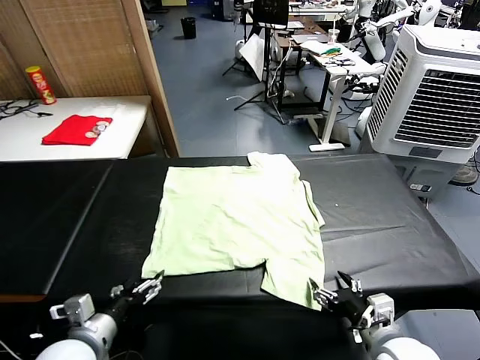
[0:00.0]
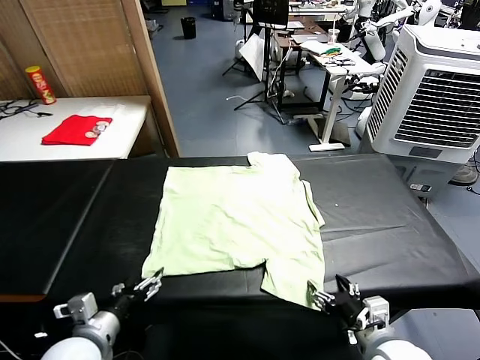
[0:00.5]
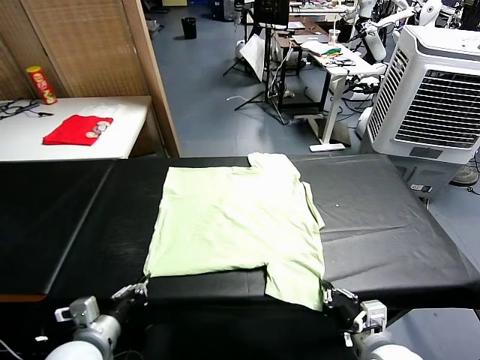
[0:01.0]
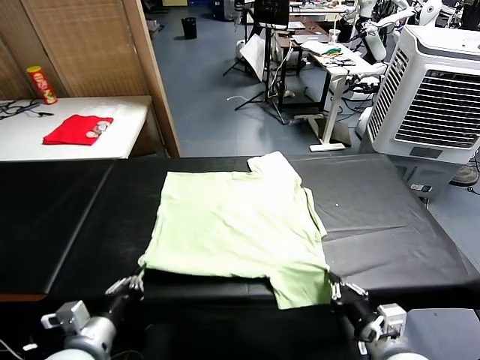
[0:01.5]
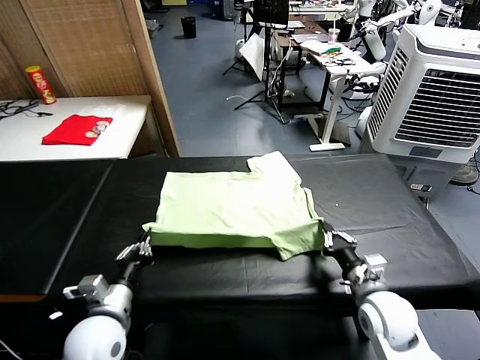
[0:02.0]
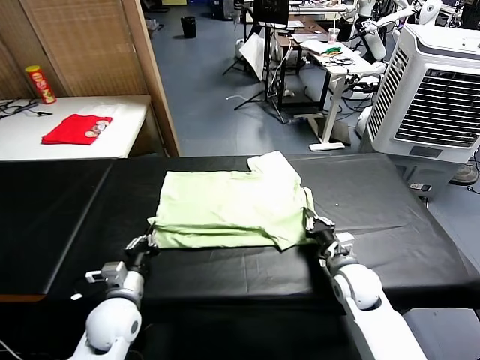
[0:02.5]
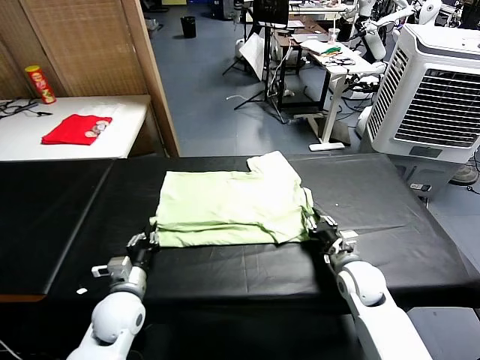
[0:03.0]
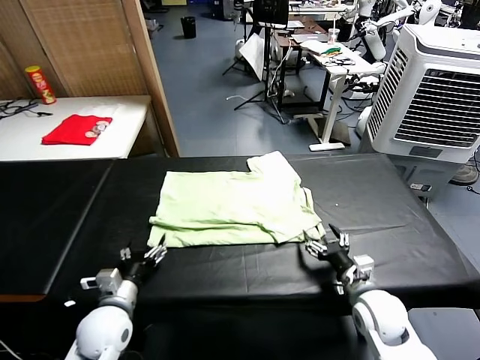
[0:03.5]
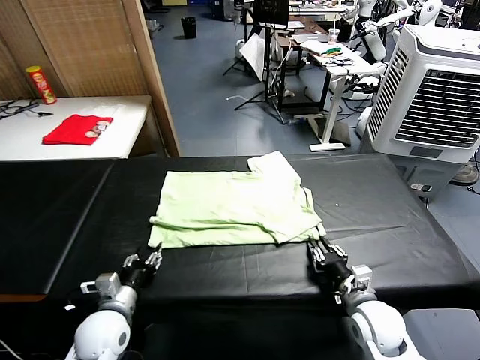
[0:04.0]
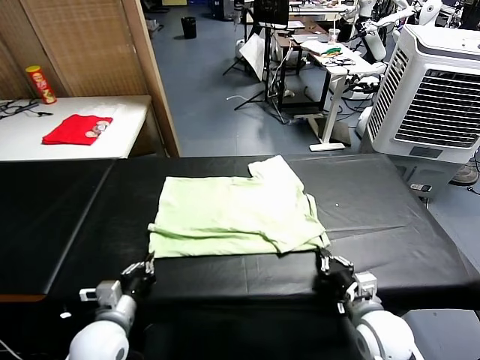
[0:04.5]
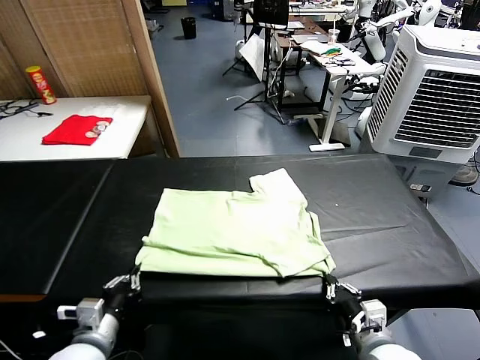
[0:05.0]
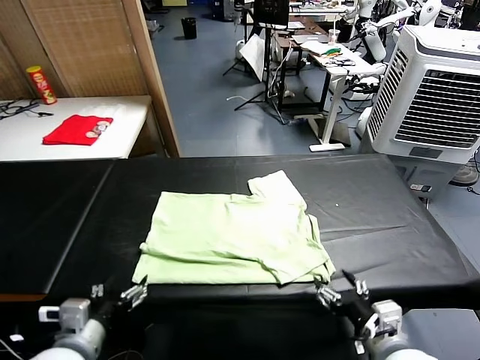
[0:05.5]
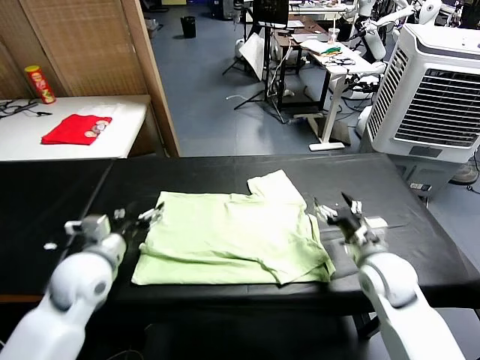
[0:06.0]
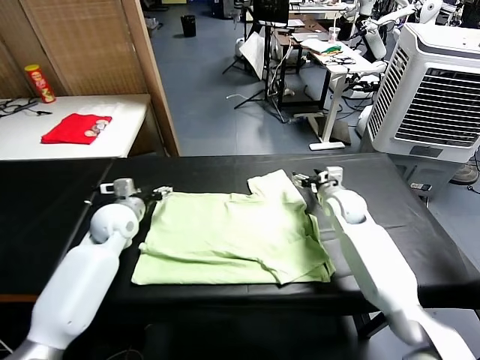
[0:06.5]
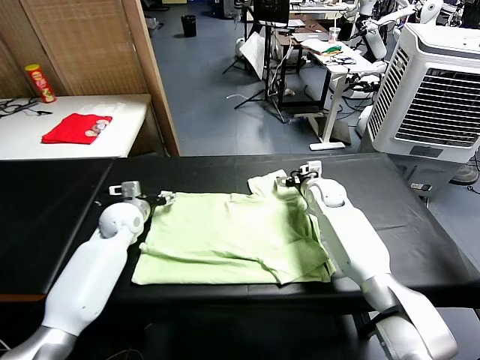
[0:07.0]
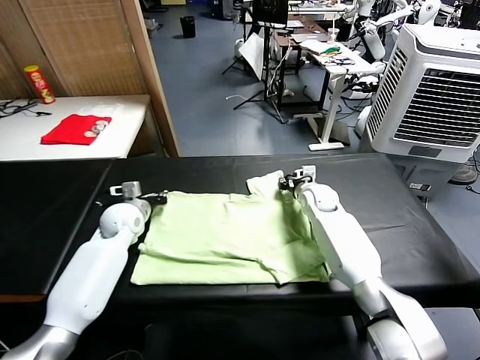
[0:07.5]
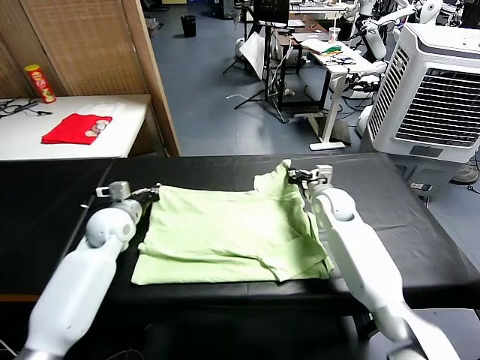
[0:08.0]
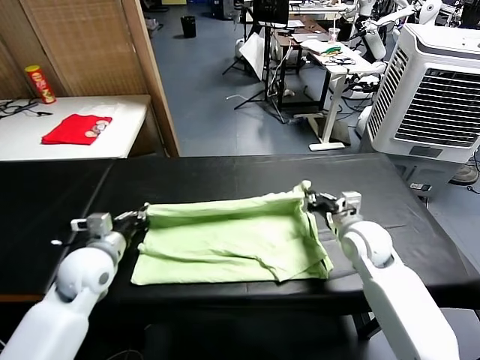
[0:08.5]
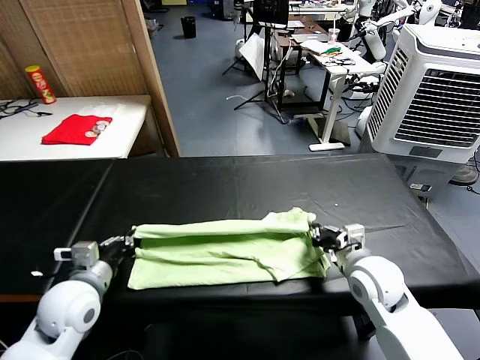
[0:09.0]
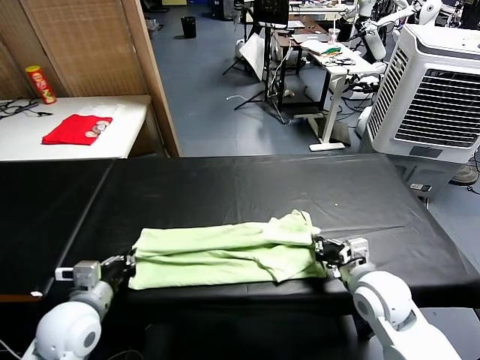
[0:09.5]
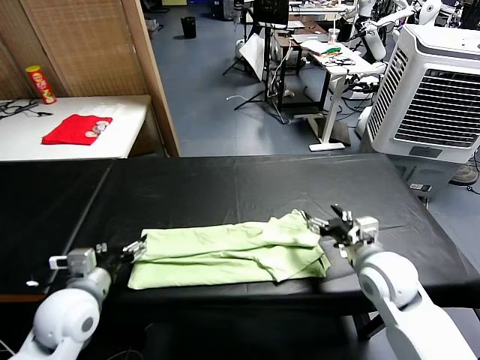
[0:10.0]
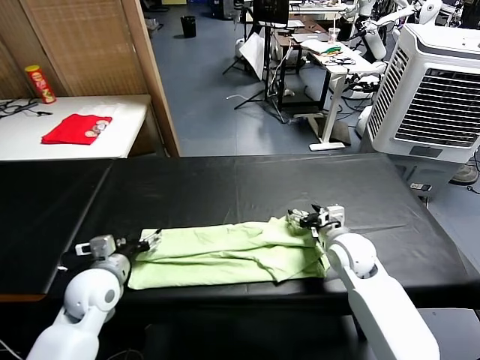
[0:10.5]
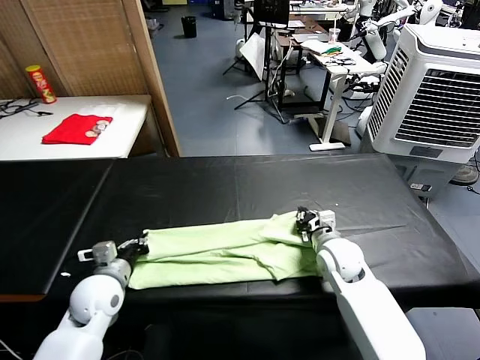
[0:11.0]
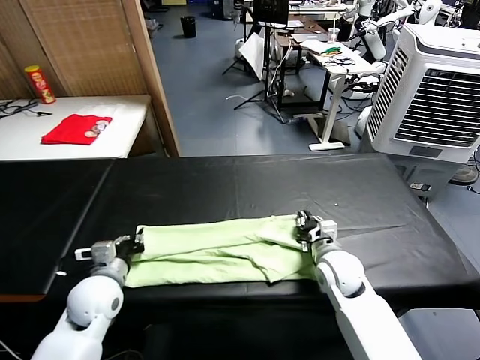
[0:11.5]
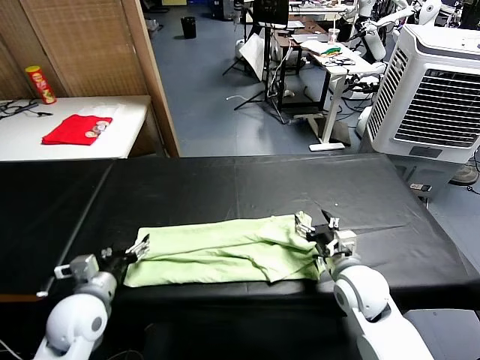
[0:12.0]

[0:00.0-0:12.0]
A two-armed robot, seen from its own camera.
Task of the whole recording: fold and organize the clothes.
Step, 0:00.0 to 0:01.0: use both grippers simultaneously to clamp the lower edge of the clothing fabric.
Step, 0:01.5 to 0:03.0: use both grippers to drag the lower edge of the fabric forward and fold it over the upper edge.
Step, 0:03.5 to 0:05.5: Drag the clothes downward with both gripper.
Step, 0:06.0 to 0:07.5: use both grippers simultaneously to clamp the upper edge of the clothing fabric.
Step, 0:08.0 to 0:09.5: use both grippers to drag the upper edge of the fabric backward and fold it over the lower edge.
0:02.0 to 0:04.0: The left gripper is displaced downward by about 5 cm, and opens its fingers; the right gripper opens, then closes again.
0:04.0 to 0:06.0: The right gripper is displaced forward and upward by about 15 cm, and opens up. Meanwhile the left gripper moves upward and forward, about 15 cm, and opens up.
0:06.0 to 0:08.0: The grippers both shift forward by approximately 10 cm. The right gripper closes. Meanwhile the left gripper closes.
0:08.0 to 0:10.0: Both grippers travel together backward, some 15 cm. The right gripper opens, while the left gripper opens.
0:10.0 to 0:12.0: The left gripper closes, then reopens; the right gripper moves approximately 5 cm forward and comes back, and closes and opens again.

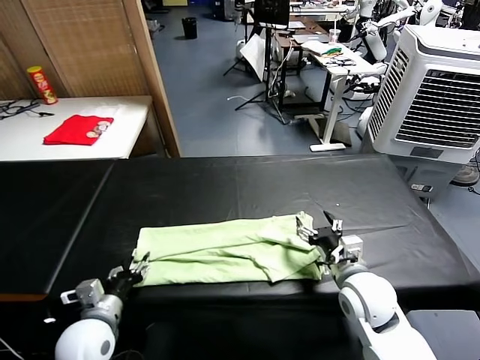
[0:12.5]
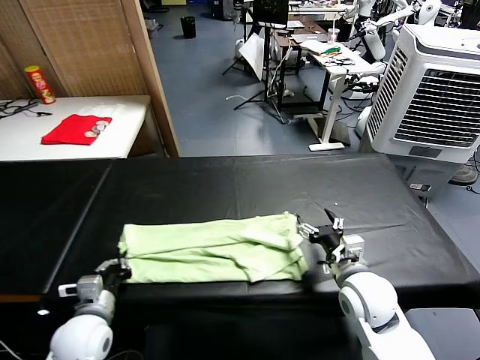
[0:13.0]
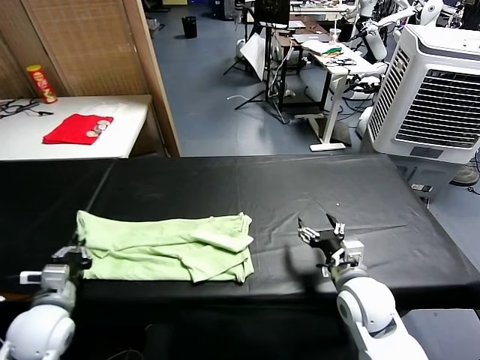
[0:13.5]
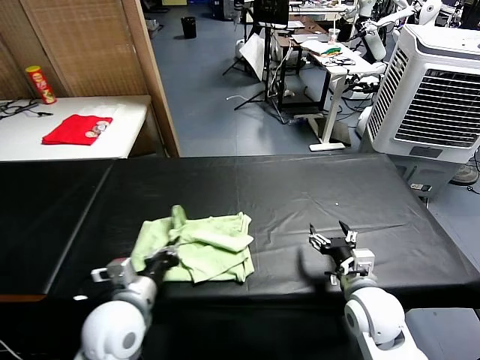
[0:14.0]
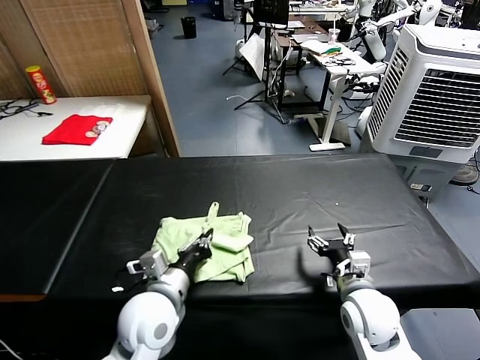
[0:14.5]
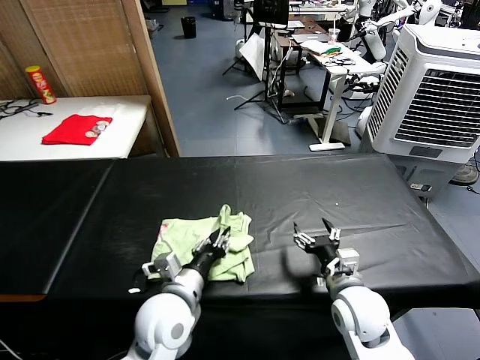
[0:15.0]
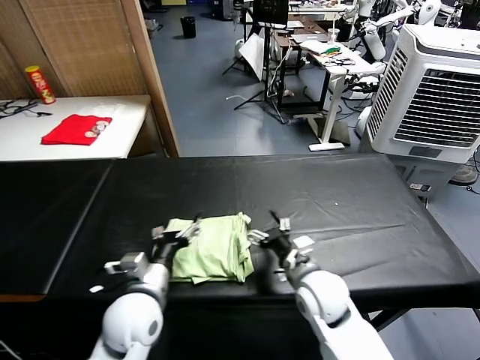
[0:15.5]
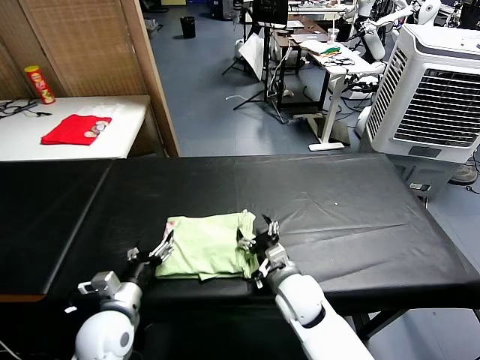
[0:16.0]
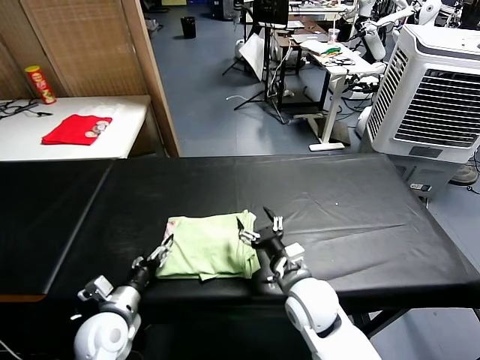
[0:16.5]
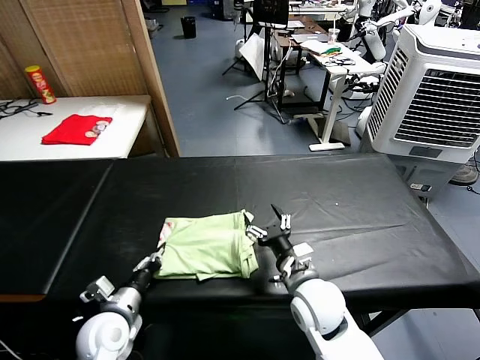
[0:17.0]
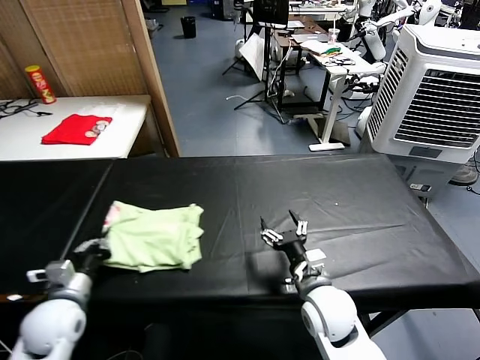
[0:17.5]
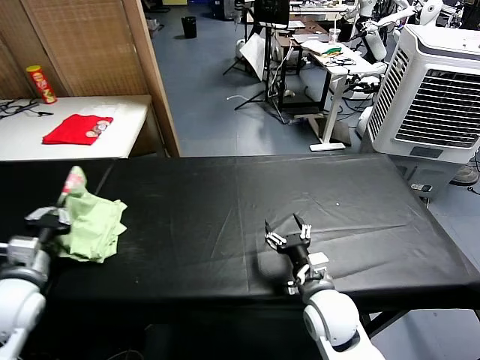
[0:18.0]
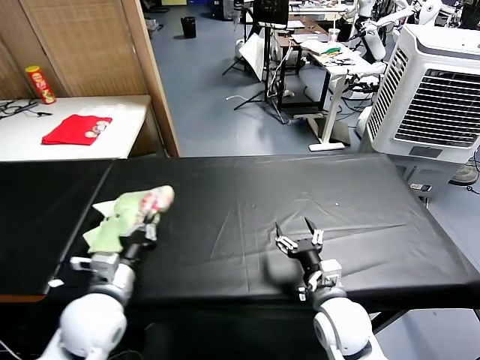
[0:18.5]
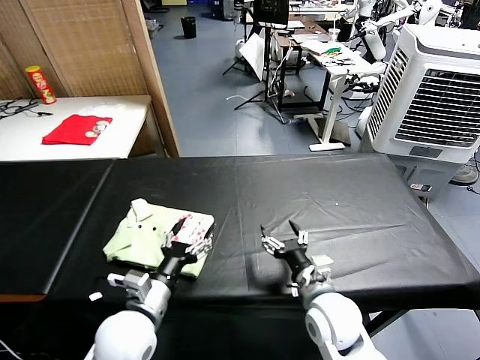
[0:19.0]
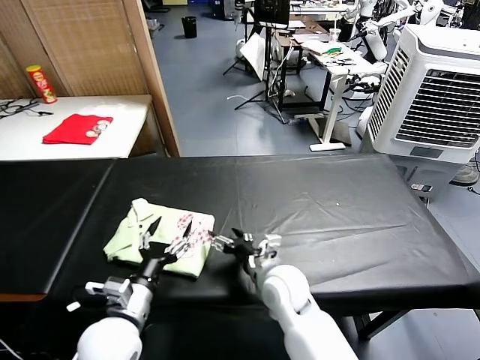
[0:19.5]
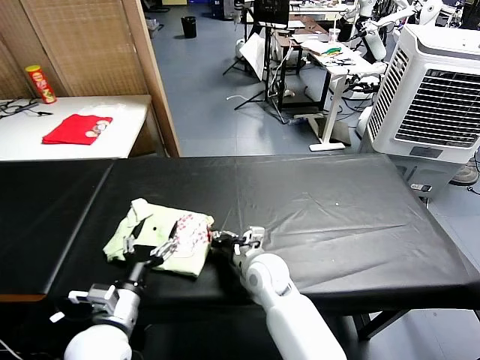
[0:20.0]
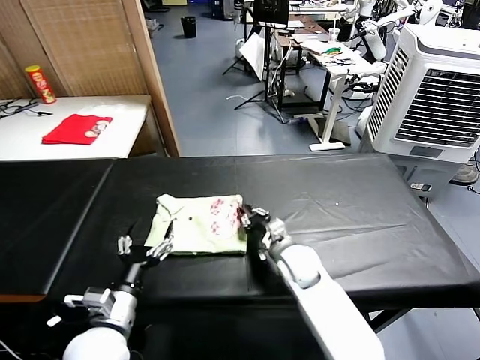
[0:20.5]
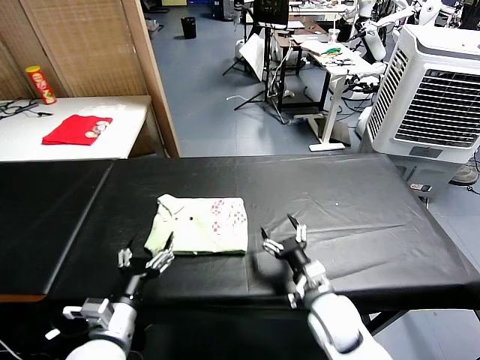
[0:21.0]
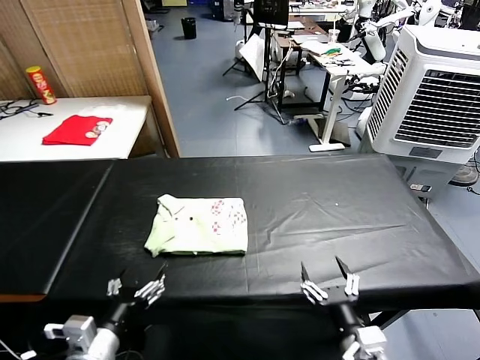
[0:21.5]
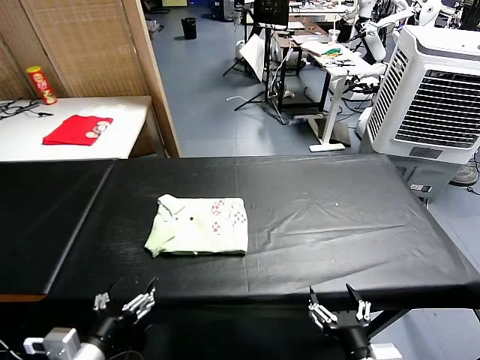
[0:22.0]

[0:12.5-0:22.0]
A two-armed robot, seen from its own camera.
Task of the whole recording: fold and organize the clothes.
Step, 0:13.0 to 0:15.0: use the left gripper to drag the left edge of the fabric to the left and folds it over the right edge.
Step, 0:15.5 to 0:18.5: Flip the folded clothes over with left gripper.
Step, 0:19.0 to 0:20.5: Drag the clothes to the center of the table.
0:12.5 to 0:14.5: The left gripper heads to the right and upward, covering roughly 15 cm, and closes its fingers.
0:14.5 to 0:16.5: The left gripper shifts roughly 15 cm to the left and downward, and opens, while the right gripper moves to the left, about 10 cm.
0:16.5 to 0:18.0: The left gripper goes about 20 cm upward and to the left, and closes.
0:18.0 to 0:20.0: The left gripper moves to the right, approximately 15 cm, and opens its fingers. Meanwhile the right gripper is displaced to the left and forward by approximately 15 cm, and closes up.
0:20.0 to 0:22.0: The left gripper heads backward, covering some 10 cm; the right gripper heads backward and to the right, covering some 30 cm, and opens.

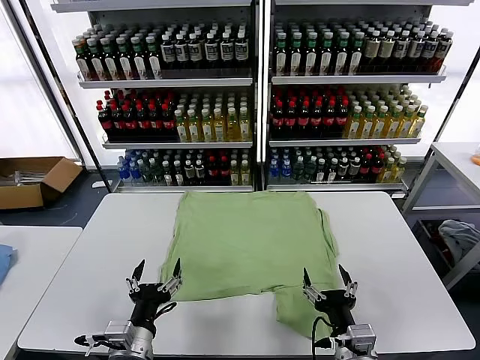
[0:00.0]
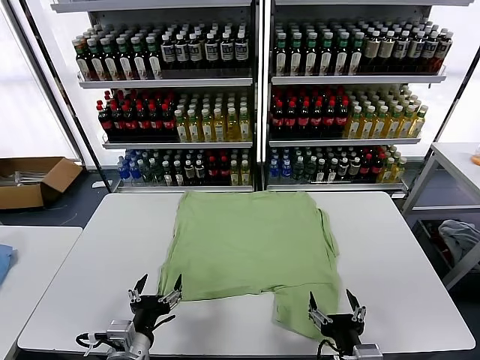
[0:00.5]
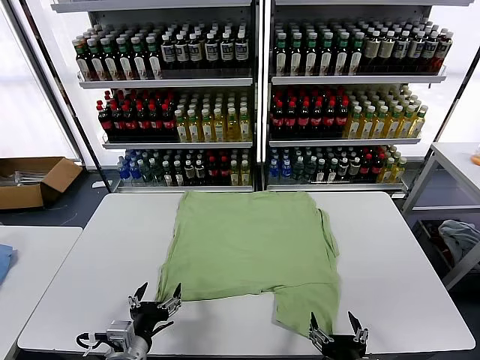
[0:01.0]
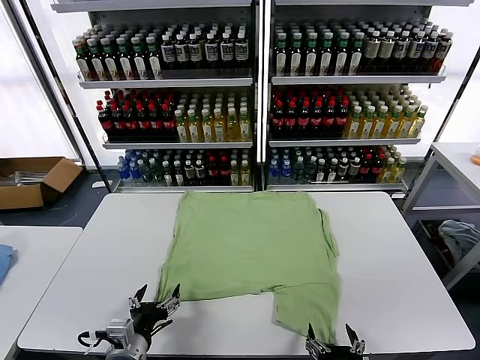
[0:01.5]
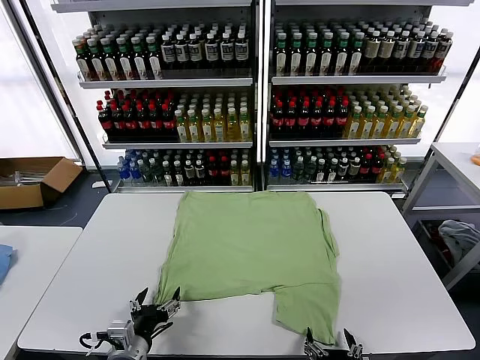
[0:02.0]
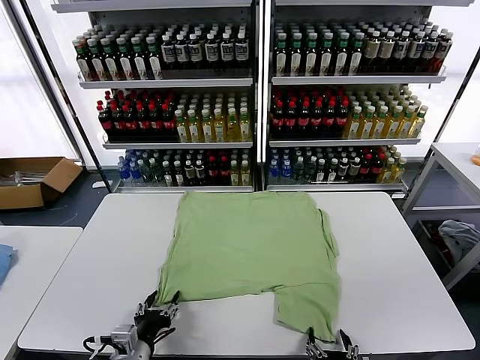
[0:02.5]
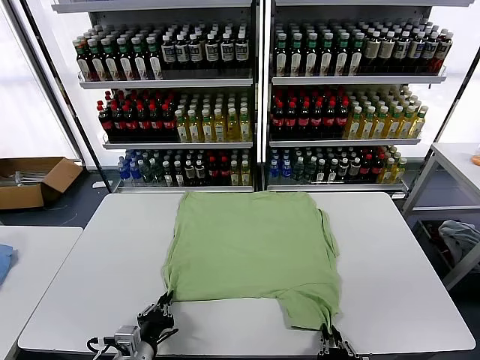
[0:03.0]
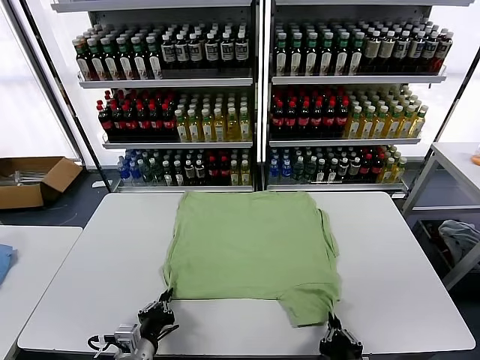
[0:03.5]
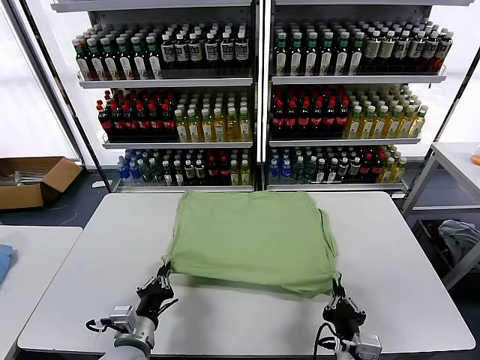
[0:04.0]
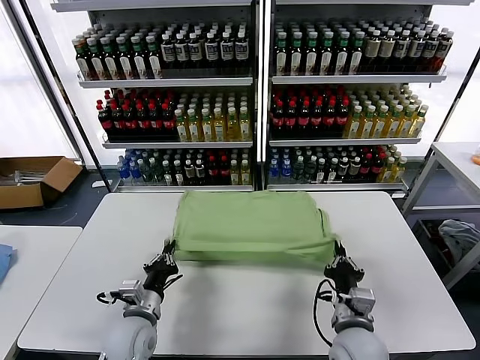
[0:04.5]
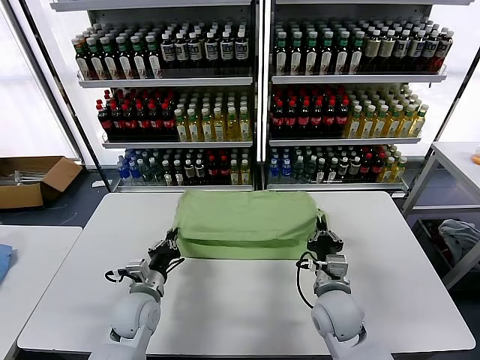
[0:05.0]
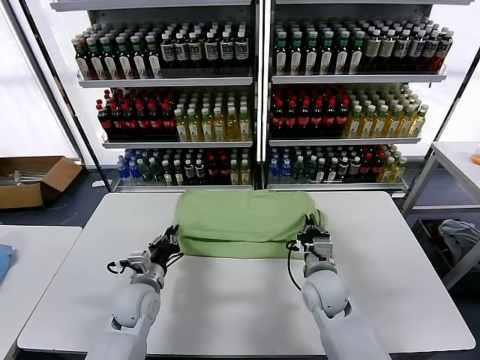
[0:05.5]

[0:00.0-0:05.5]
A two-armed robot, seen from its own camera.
Task of the whole recording: fold and organize the clothes.
Step, 0:00.0 to 0:03.0: use both grippers simultaneously to clamp the lower edge of the clothing fabric.
0:02.0 to 0:03.5: The left gripper closes up. Meanwhile the right gripper closes.
0:03.5 to 0:05.5: The right gripper travels forward by roughly 25 cm. The left gripper goes approximately 15 cm forward.
